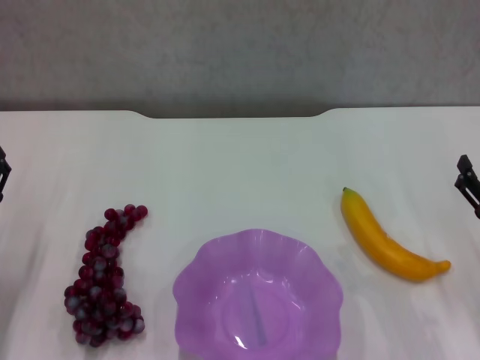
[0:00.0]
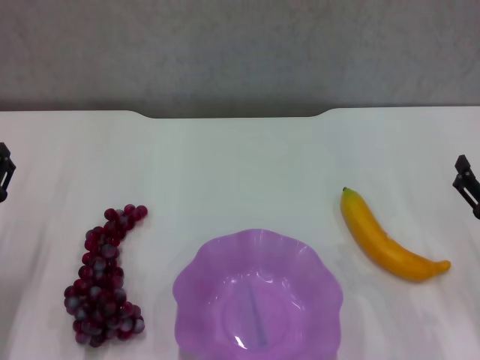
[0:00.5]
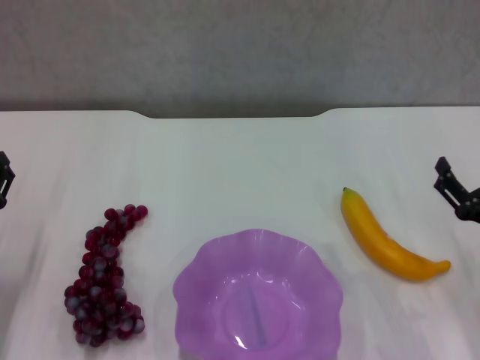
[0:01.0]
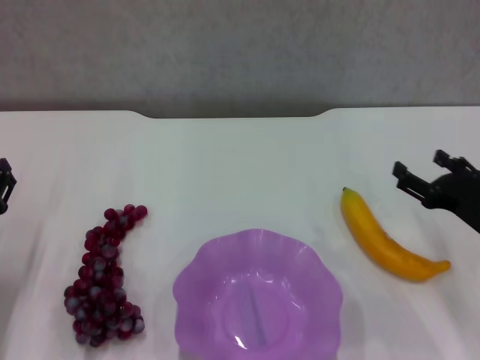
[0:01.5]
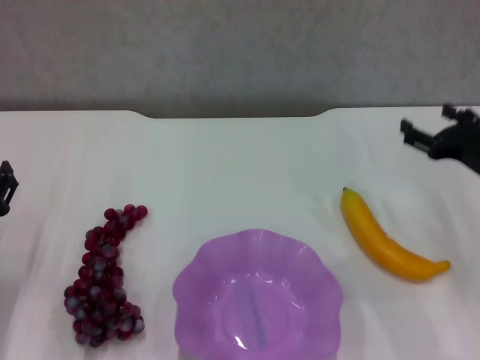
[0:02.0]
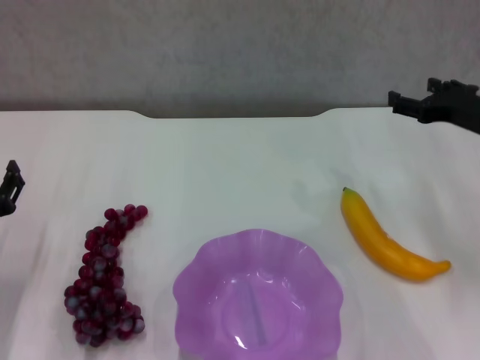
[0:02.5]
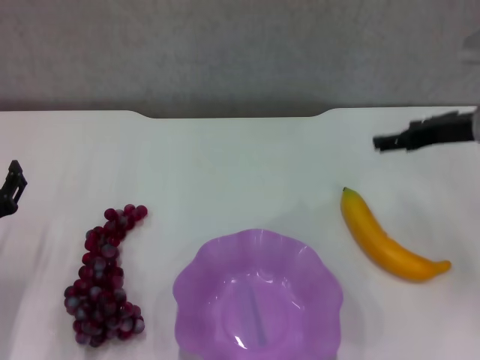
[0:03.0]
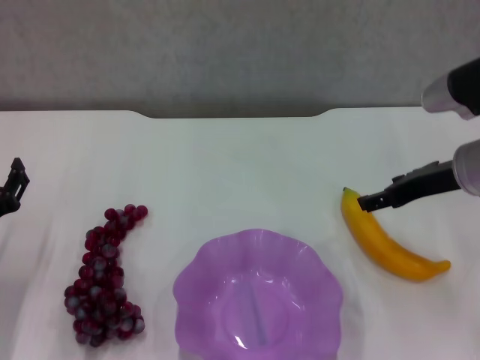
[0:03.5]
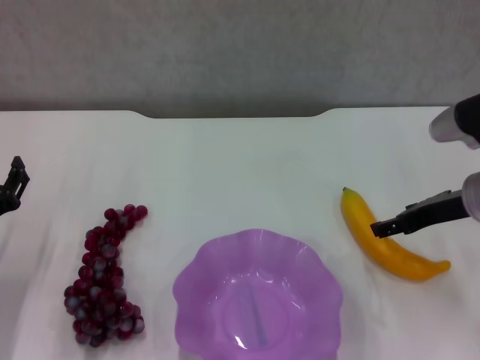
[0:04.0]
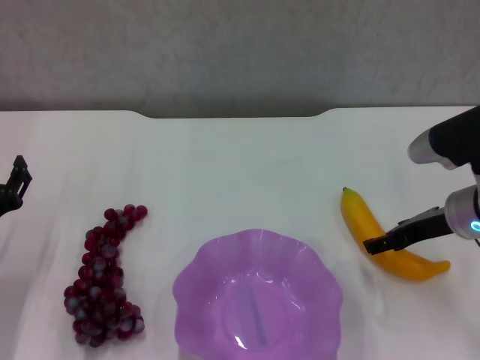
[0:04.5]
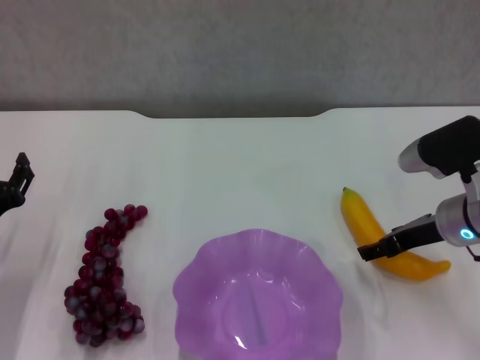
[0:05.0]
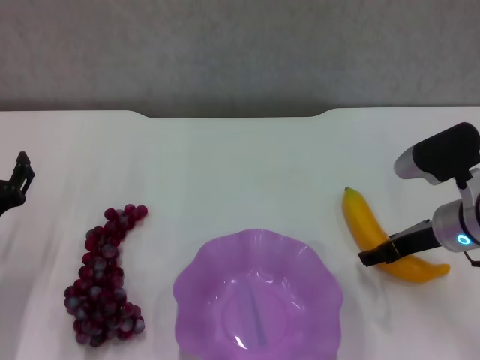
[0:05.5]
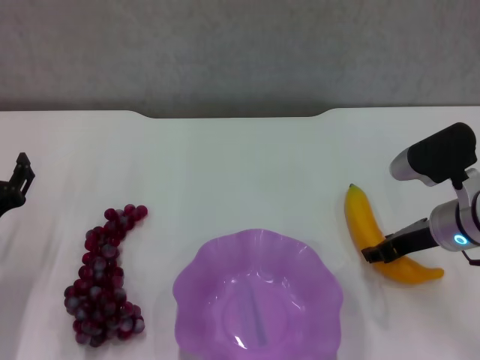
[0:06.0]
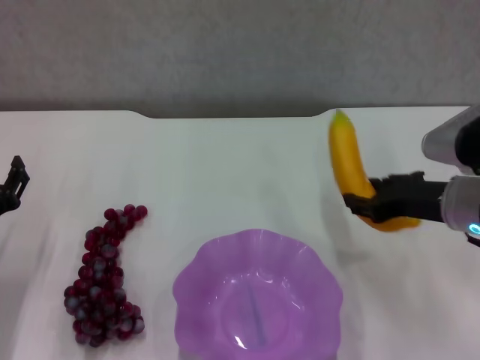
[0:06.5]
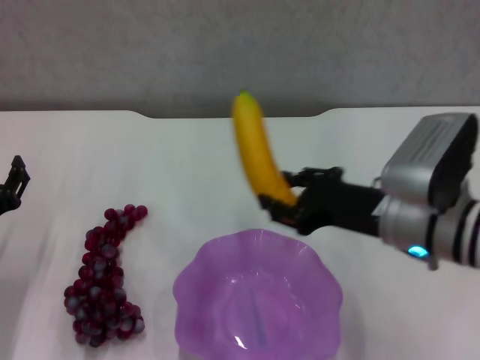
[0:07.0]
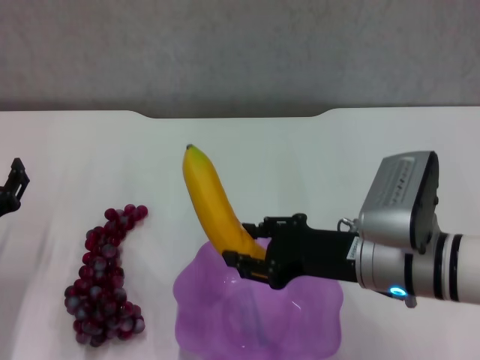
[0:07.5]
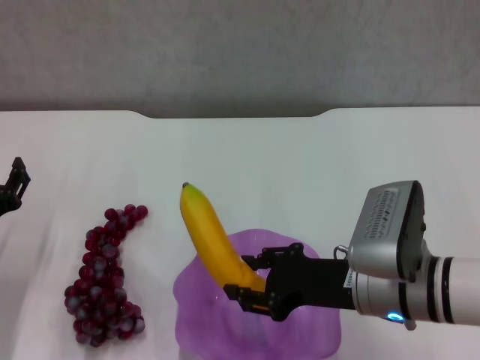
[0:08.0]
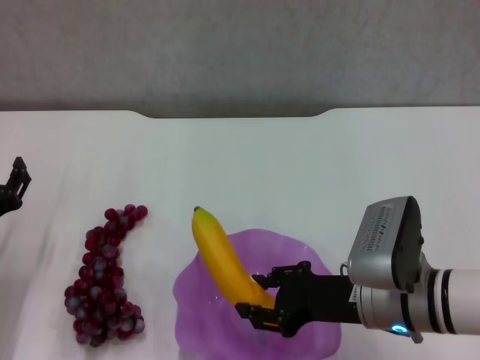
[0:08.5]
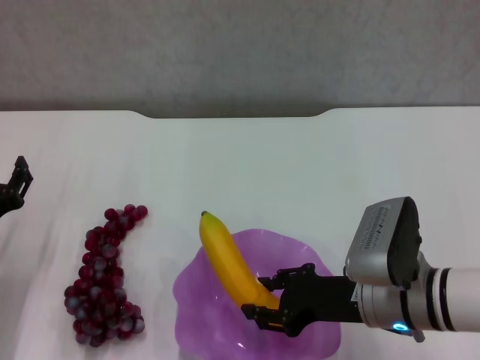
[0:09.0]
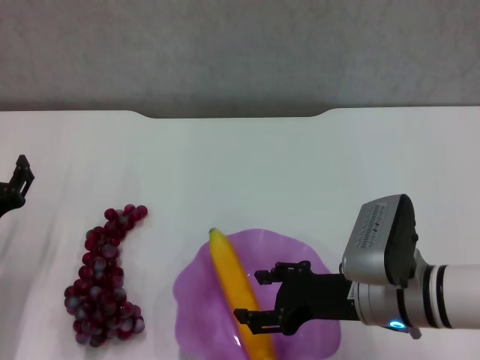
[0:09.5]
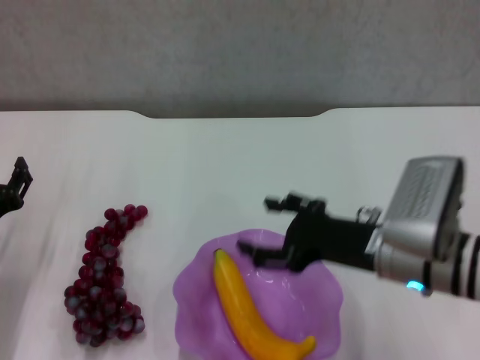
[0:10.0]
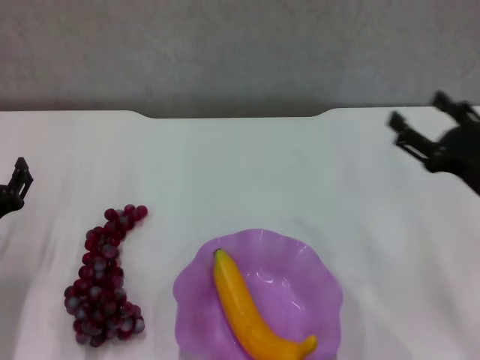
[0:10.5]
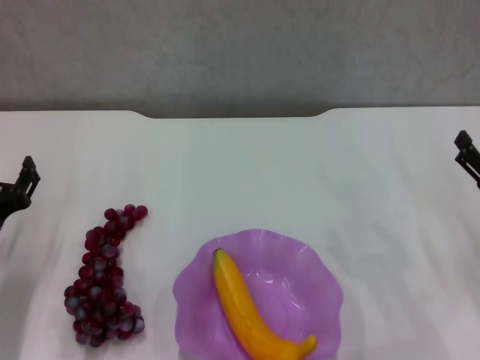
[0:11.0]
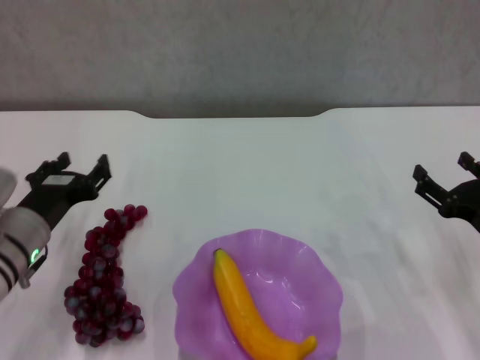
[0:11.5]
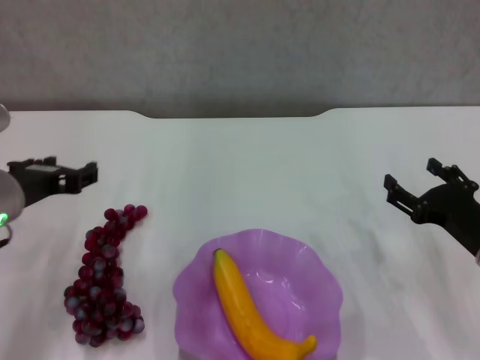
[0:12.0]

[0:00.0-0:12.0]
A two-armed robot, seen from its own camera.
Step, 0:00.0 to 0:05.5: Grasp the banana with right gripper.
Step, 0:06.0 to 0:10.0: Place the banana in the purple plate with right gripper.
0:00.0 to 0:02.0: The right gripper goes roughly 10 cm forward.
0:04.0 to 0:06.0: The right gripper closes its fingers.
0:06.0 to 0:08.0: The right gripper is displaced backward and to the left by approximately 10 cm.
0:08.0 to 0:10.0: The right gripper opens its fingers.
0:10.0 to 0:12.0: The left gripper travels upward and to the right by roughly 10 cm, while the right gripper is displaced to the right and downward by approximately 15 cm.

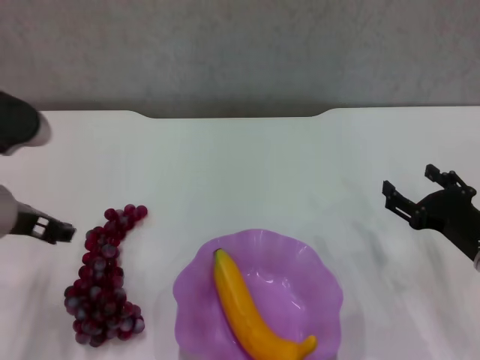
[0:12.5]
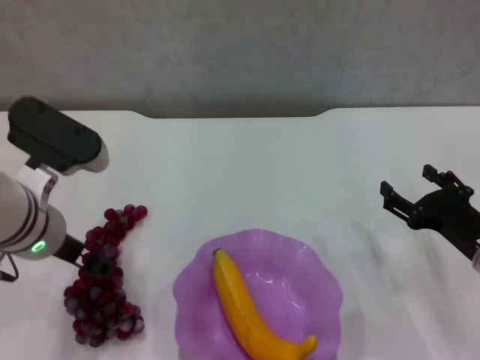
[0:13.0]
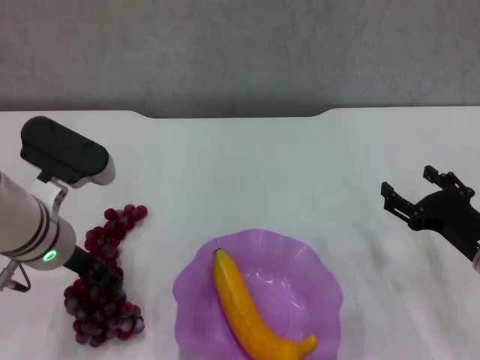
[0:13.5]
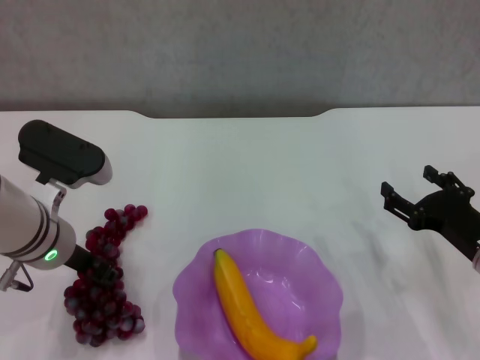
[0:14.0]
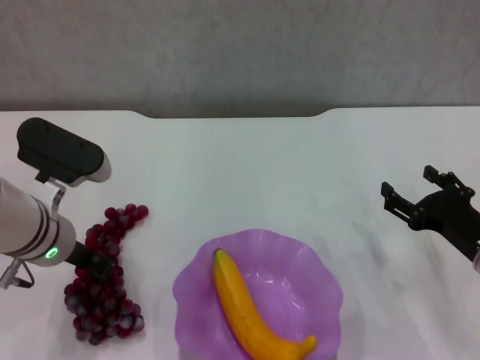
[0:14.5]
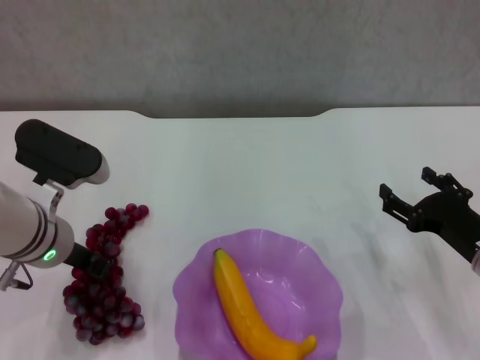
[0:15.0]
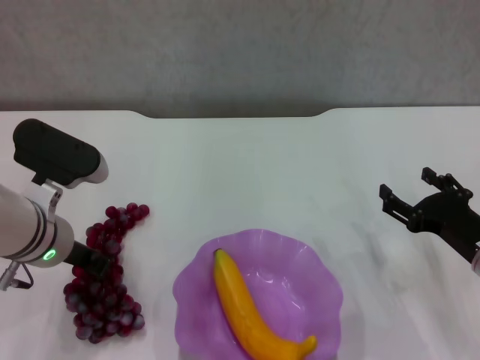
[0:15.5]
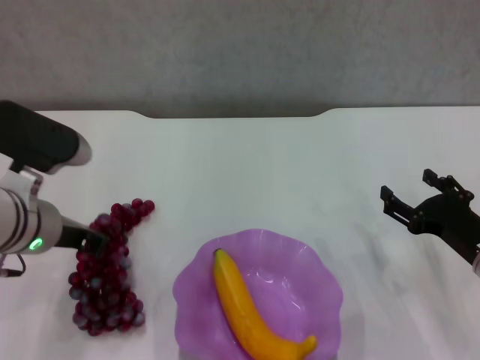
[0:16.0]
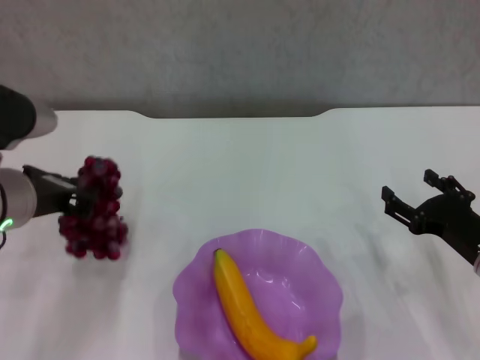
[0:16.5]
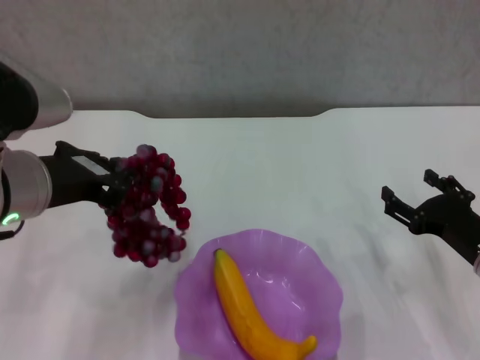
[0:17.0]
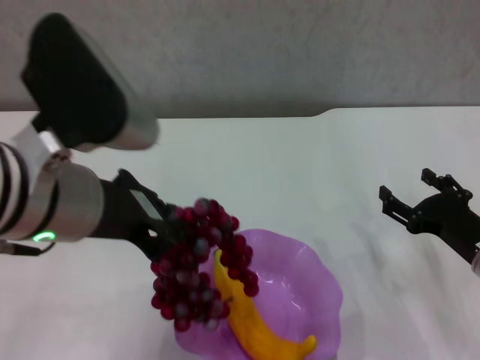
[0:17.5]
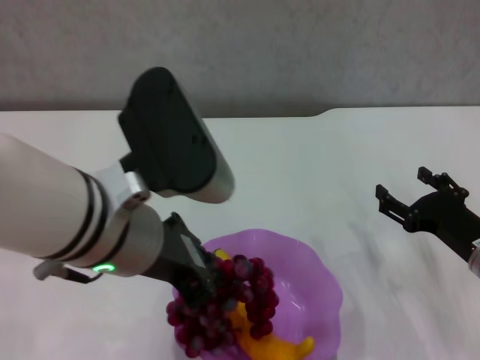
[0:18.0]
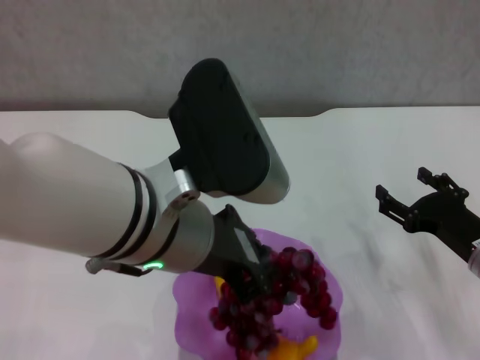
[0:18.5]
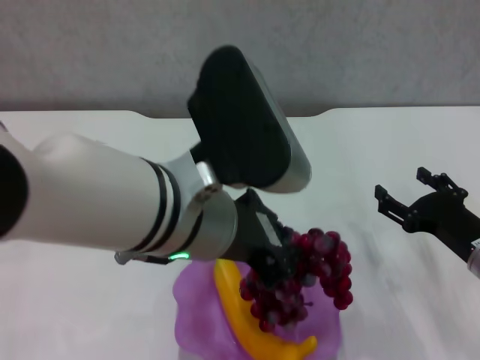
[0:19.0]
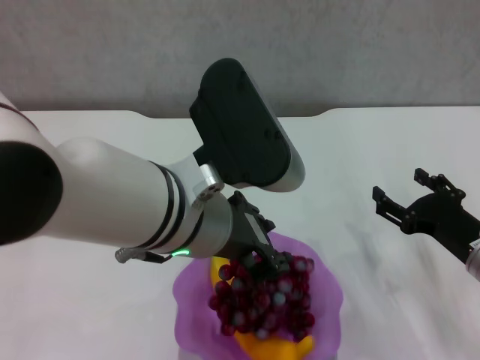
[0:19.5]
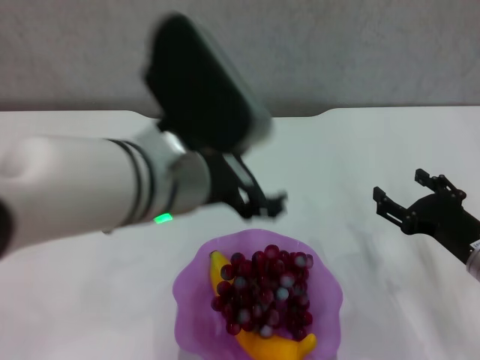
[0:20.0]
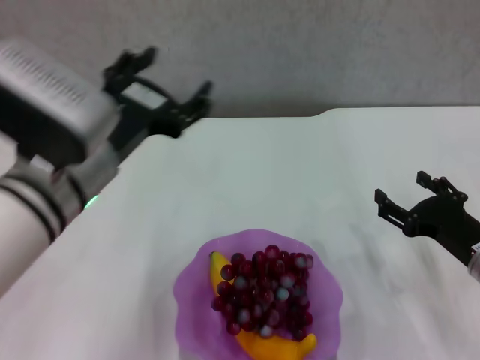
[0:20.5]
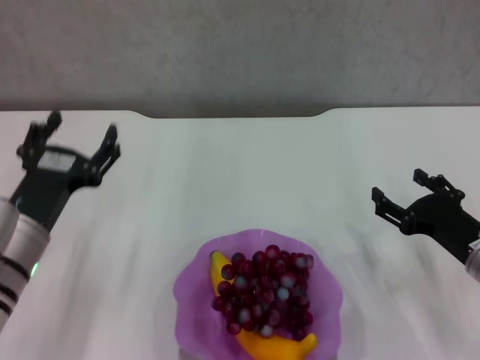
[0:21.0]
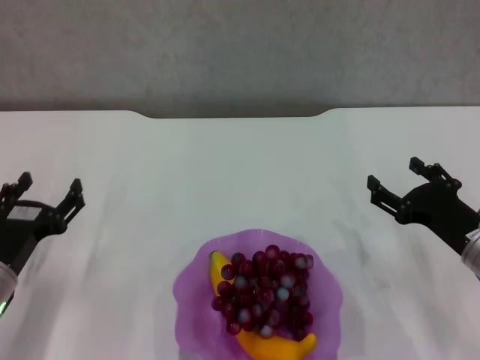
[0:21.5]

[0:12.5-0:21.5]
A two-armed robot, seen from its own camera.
Step, 0:12.5 to 0:15.5: Grasp the grape with left gripper.
Step, 0:16.0 to 0:20.0: Place the grape in the purple plate with left gripper.
0:12.5 to 0:14.5: The left gripper shifts approximately 5 cm downward, and closes.
0:14.5 to 0:17.0: The left gripper is displaced upward and backward by about 10 cm.
0:17.0 to 0:19.5: The left gripper goes about 15 cm to the right.
0:19.5 to 0:21.5: The left gripper moves to the left and downward, some 30 cm, and opens.

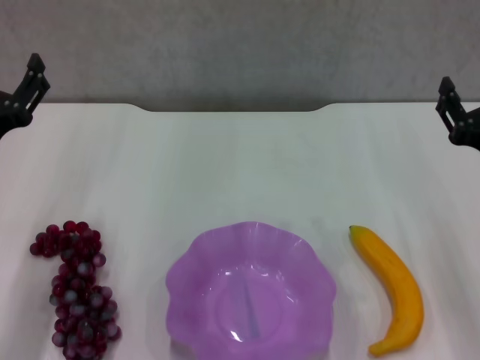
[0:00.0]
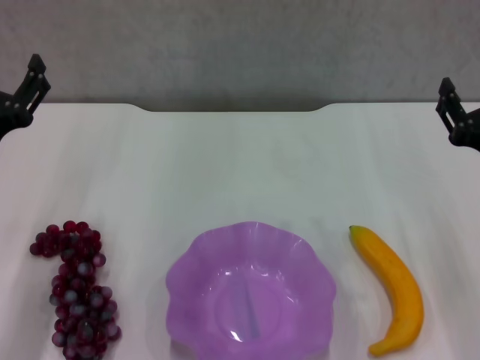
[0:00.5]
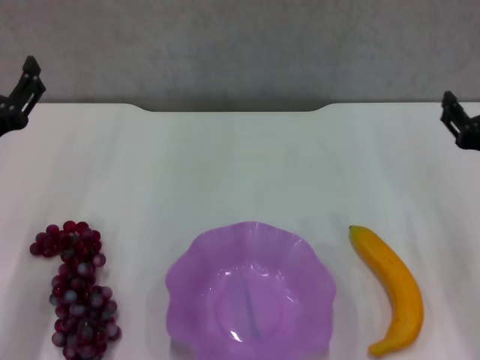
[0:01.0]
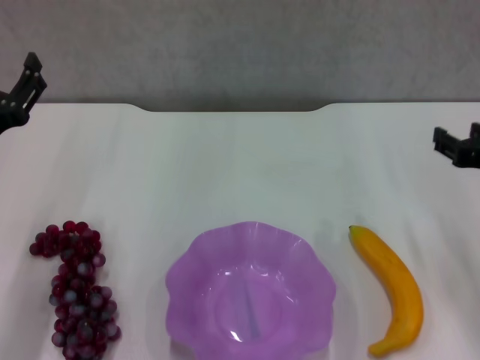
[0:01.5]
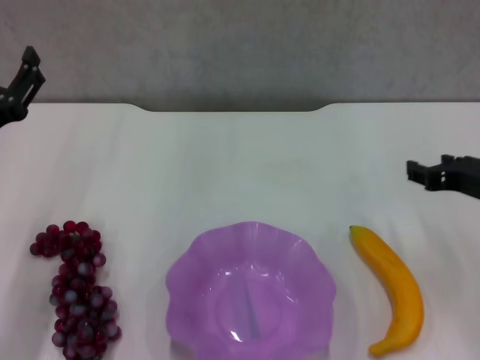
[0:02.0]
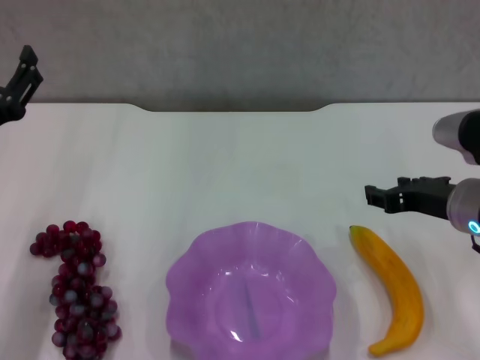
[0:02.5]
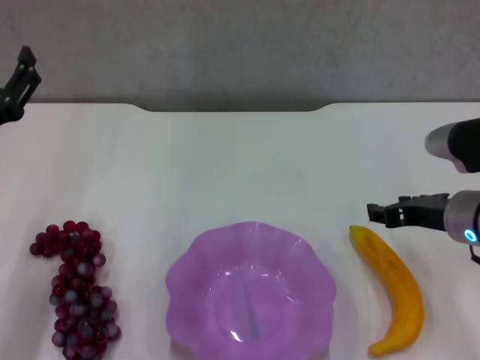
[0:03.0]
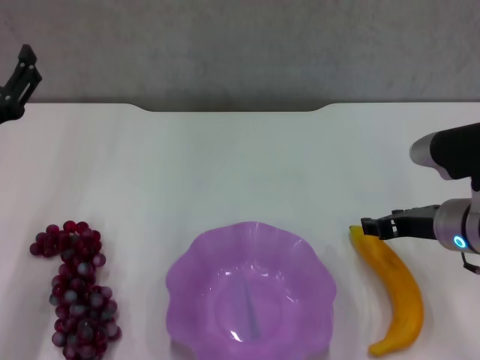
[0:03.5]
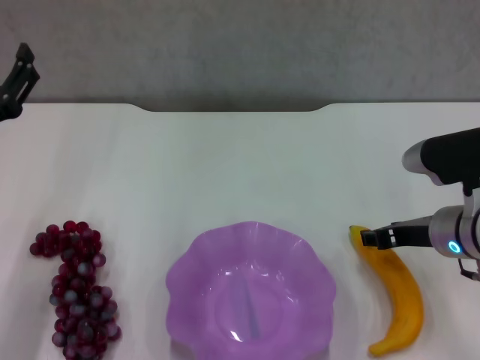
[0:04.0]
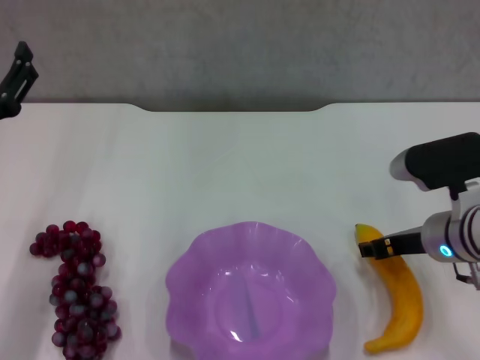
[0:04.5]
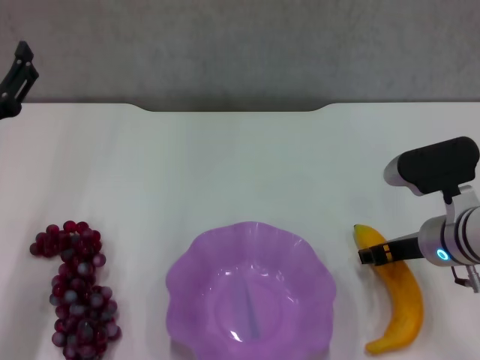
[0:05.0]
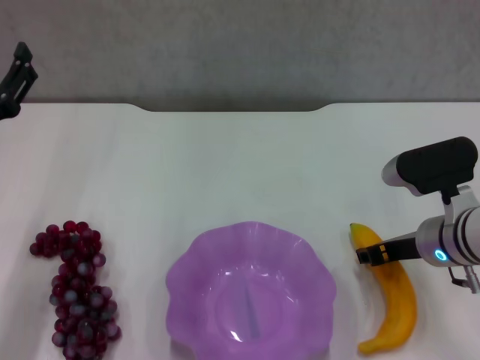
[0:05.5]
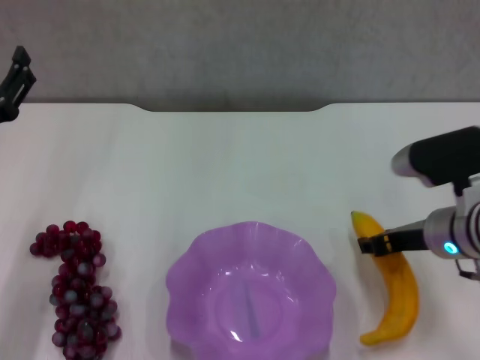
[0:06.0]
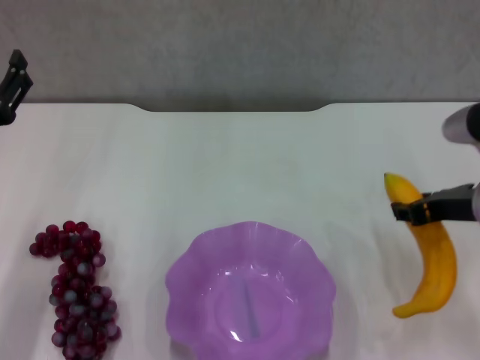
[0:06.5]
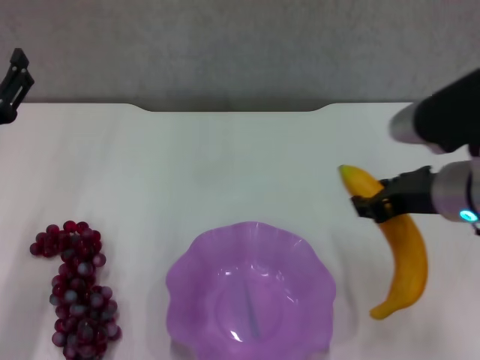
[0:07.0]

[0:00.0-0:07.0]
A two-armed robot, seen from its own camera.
Step, 0:00.0 to 0:05.0: Grasp the banana with right gripper.
0:02.0 to 0:03.5: The right gripper shifts by roughly 5 cm.
0:03.5 to 0:05.0: The grippers move only a little.
0:05.0 to 0:07.0: The right gripper shifts roughly 10 cm upward, and closes its fingers.
